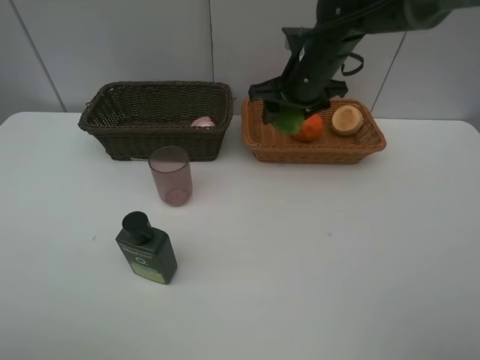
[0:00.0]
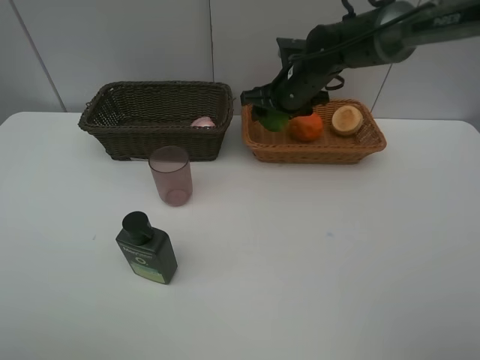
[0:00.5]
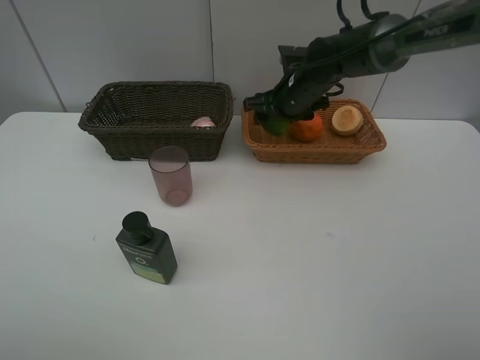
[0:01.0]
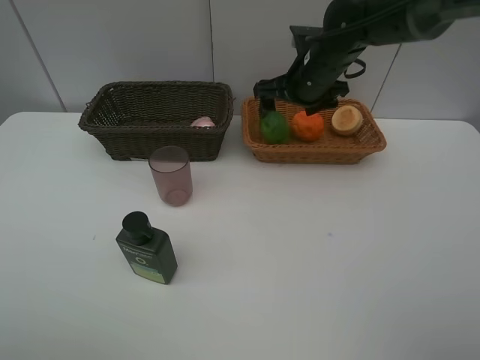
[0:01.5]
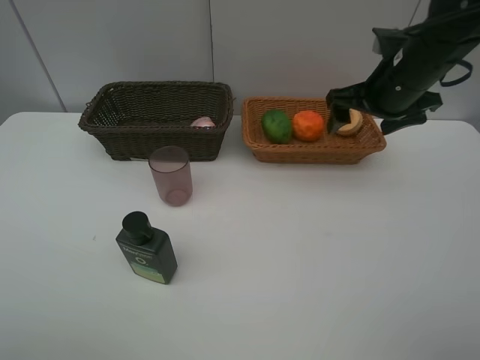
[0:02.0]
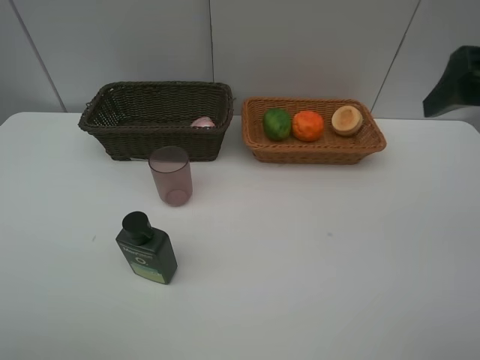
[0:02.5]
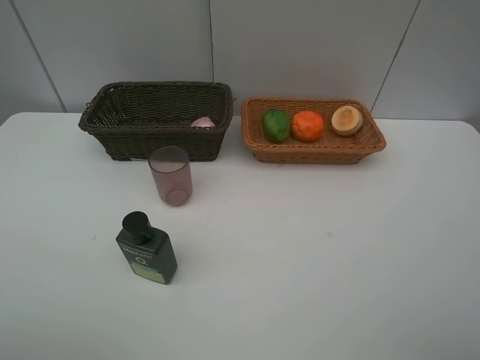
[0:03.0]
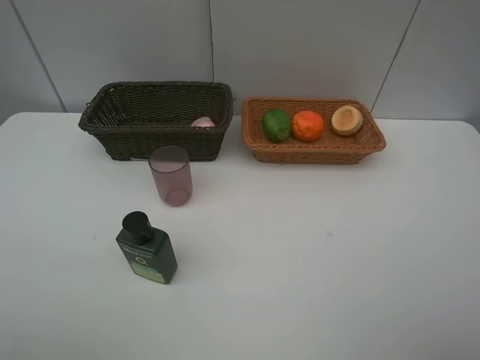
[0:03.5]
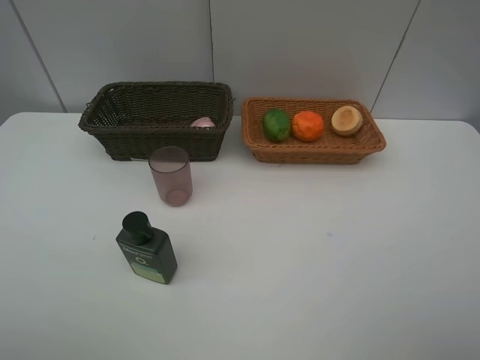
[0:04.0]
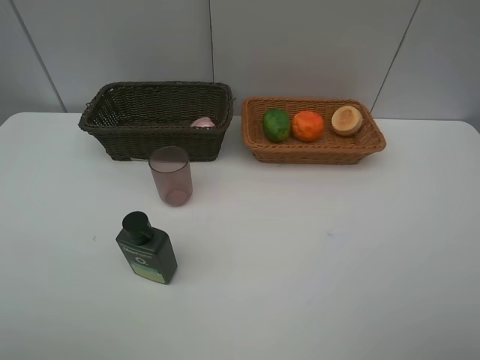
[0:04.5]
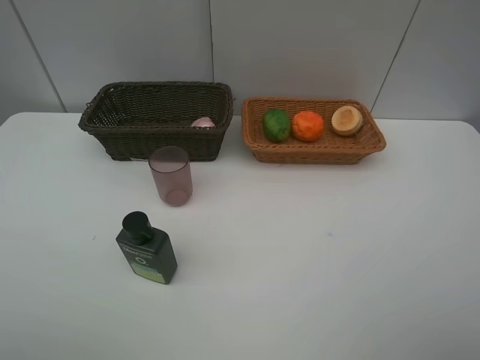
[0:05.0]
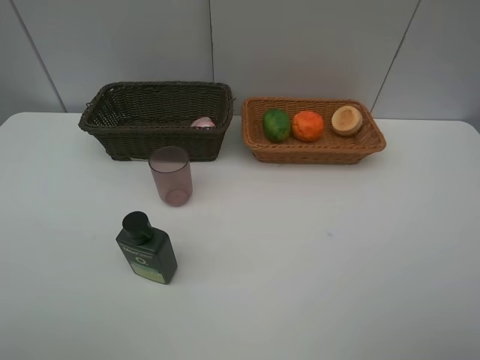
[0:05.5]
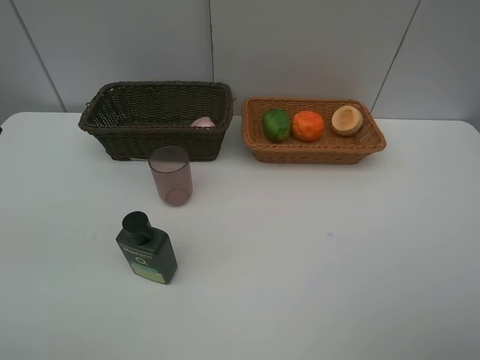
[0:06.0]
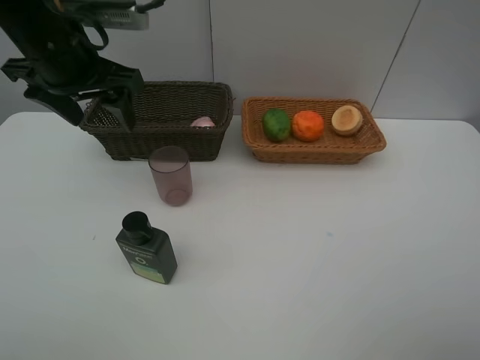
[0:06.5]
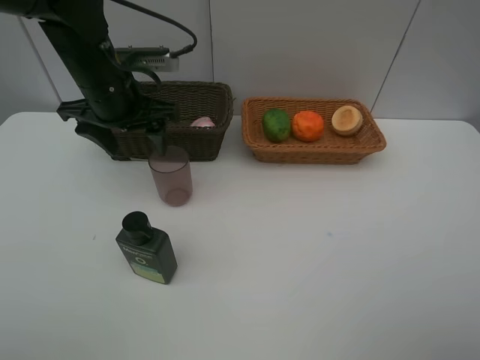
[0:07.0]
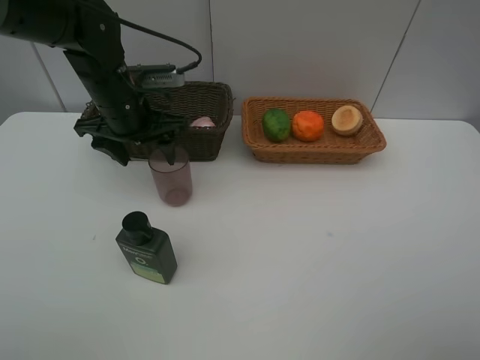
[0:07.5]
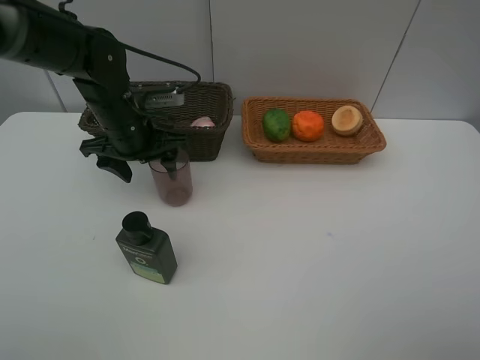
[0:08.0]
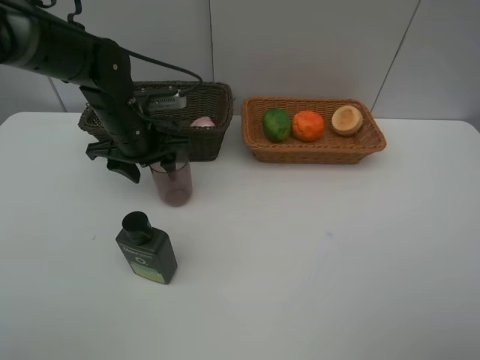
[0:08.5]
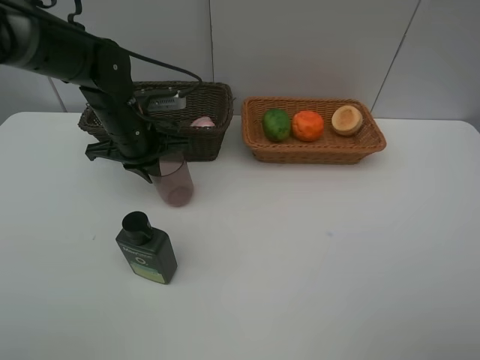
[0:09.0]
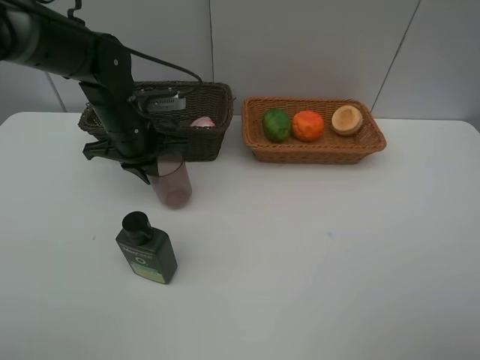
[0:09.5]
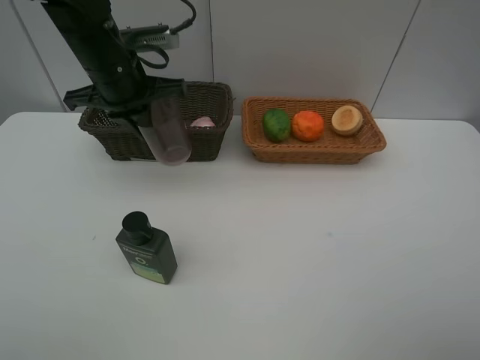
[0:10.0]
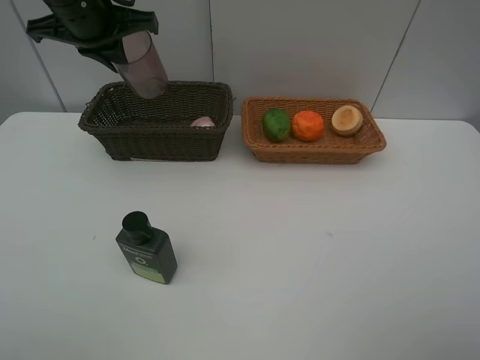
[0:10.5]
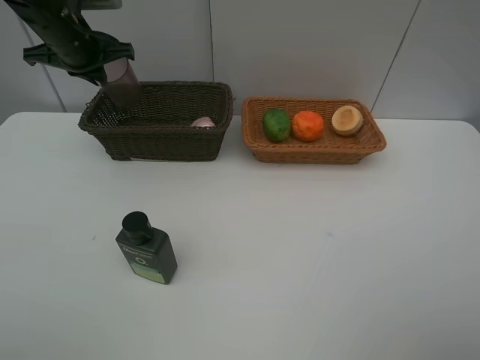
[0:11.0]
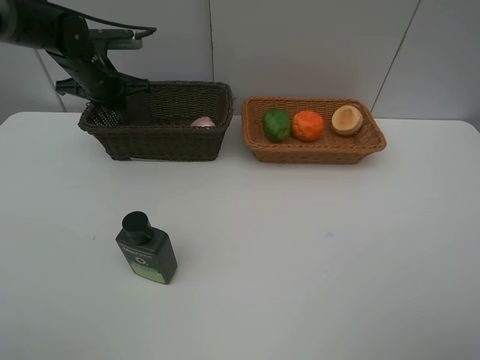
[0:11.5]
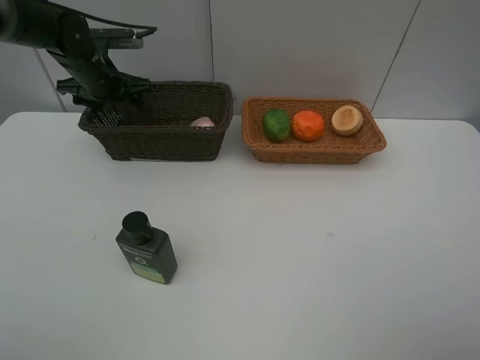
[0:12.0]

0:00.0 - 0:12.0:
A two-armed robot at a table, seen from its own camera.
Task of the whole recording: place multiple objects separately in different baskets.
Step, 0:00.0 - 0:01.5: Place the lime in the light basket with right gripper.
Step, 0:02.0 - 0:09.5: Pick up the brown cup with left gripper.
0:00.0 - 0:02.0: The right gripper goes about 15 cm to the right and backward, and opens.
0:02.0 - 0:04.0: The right gripper travels backward by about 35 cm.
0:06.0 - 0:08.0: The left gripper travels downward, forward and to the right by some 25 cm.
0:08.0 - 0:10.0: The left gripper heads upward, covering about 10 cm, and closes its fingers.
0:10.0 - 0:12.0: The left gripper goes roughly 15 cm forward, to the left and downward, and opens up.

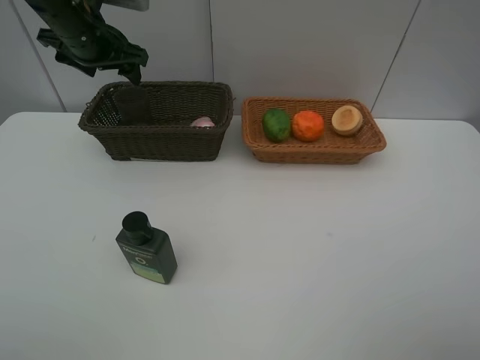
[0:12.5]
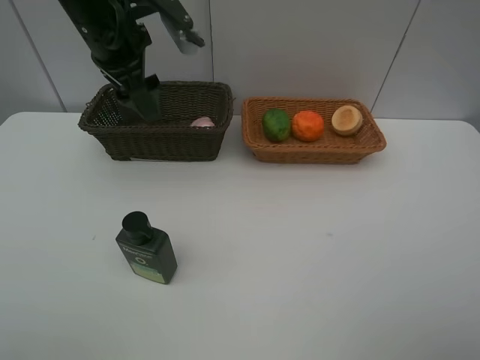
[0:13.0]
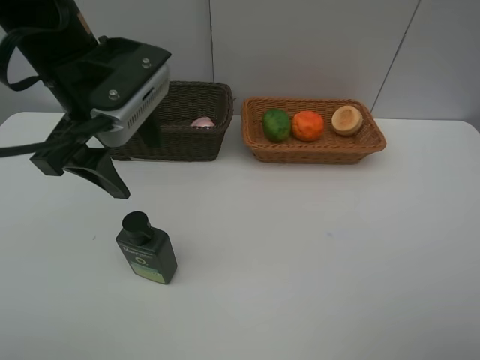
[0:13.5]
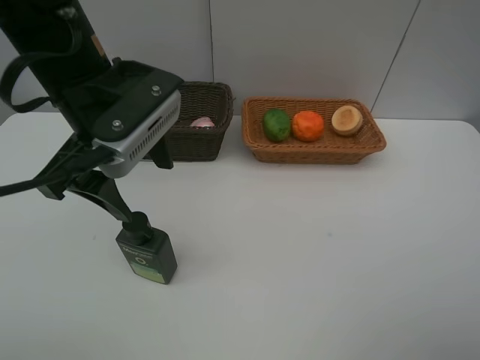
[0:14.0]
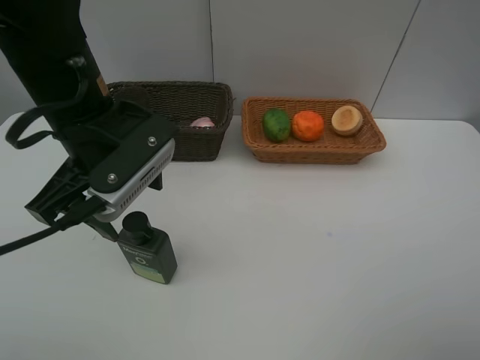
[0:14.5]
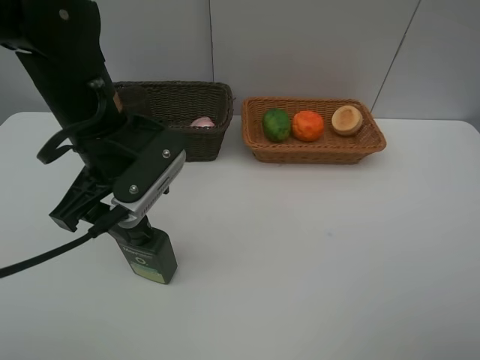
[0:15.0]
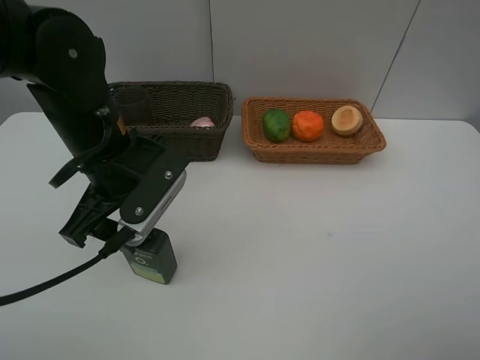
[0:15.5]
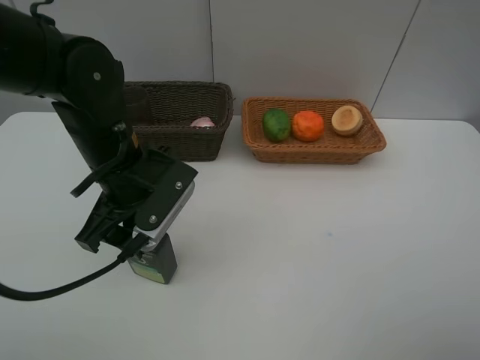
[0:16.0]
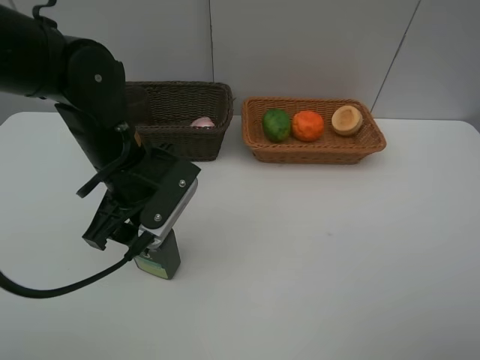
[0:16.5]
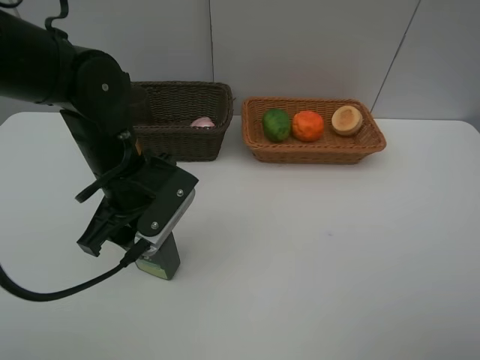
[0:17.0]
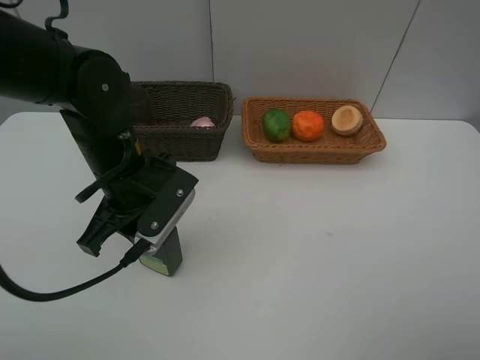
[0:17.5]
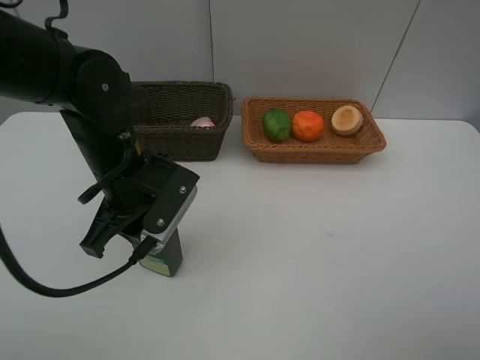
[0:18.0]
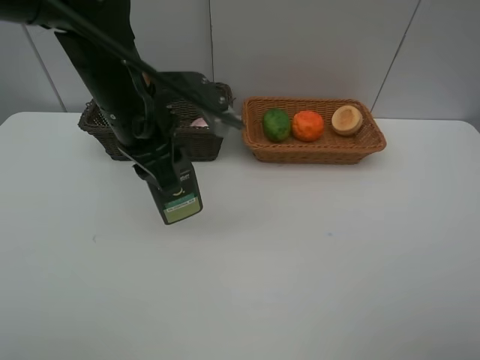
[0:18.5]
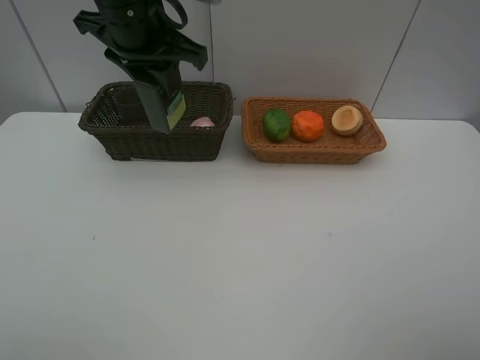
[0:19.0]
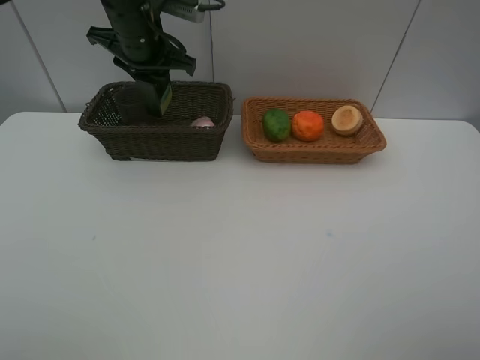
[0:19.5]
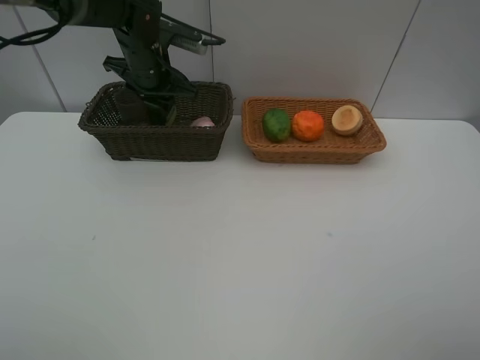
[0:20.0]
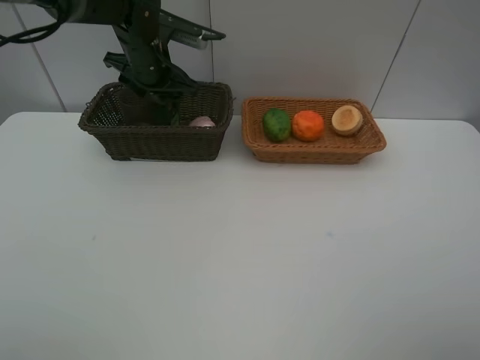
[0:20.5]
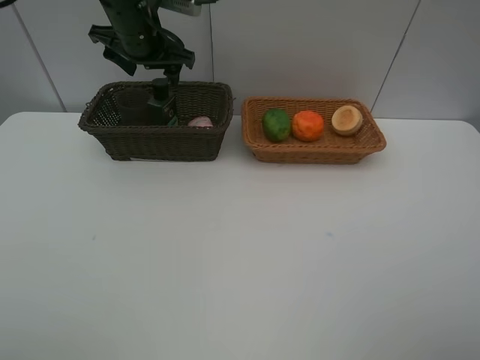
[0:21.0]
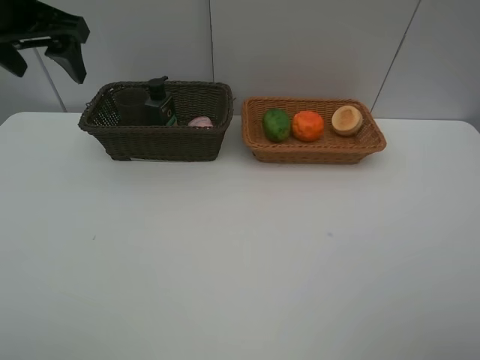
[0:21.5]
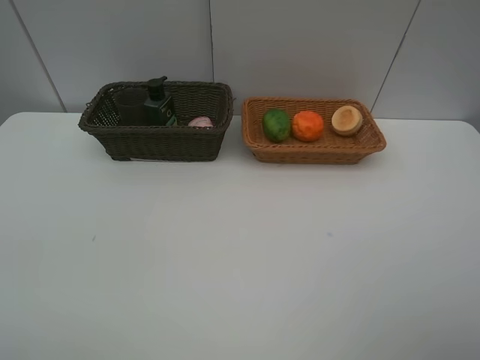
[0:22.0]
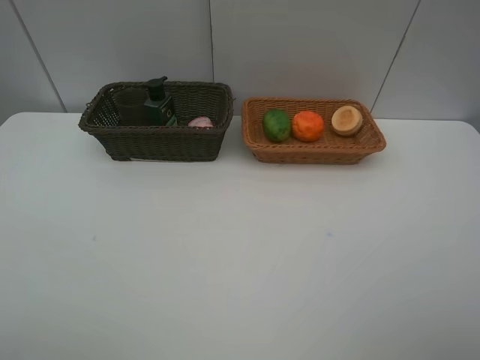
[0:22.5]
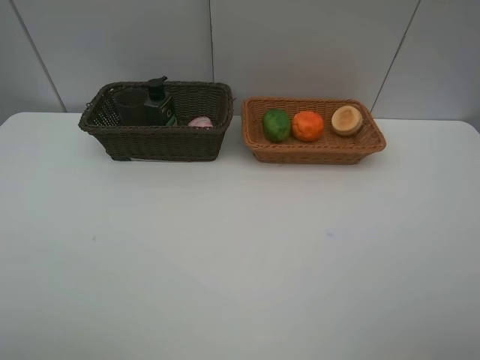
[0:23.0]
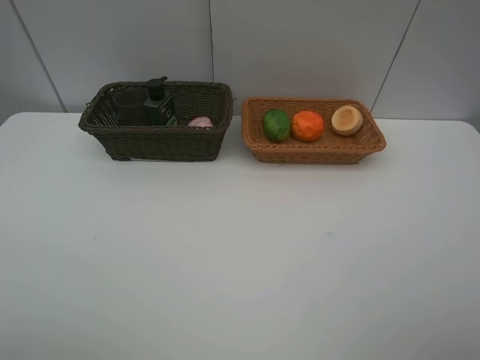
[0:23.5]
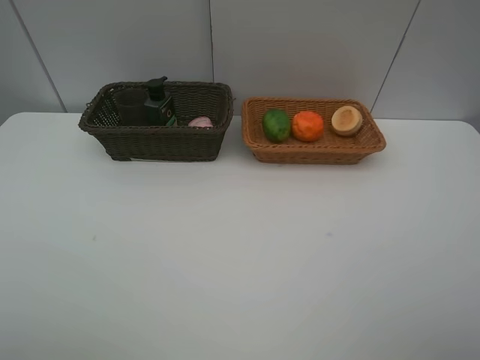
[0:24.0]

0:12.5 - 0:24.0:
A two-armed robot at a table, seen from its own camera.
Task of the whole recording: place multiple objects separately in different baskets.
Step, 0:12.5 - 0:18.0: Pick up the facial cleanser with left gripper.
Step, 0:18.5 - 0:21.0: Place the facial cleanser in the dark basket with left gripper.
0:12.5 - 0:14.5: The left gripper travels backward and to the right by about 20 cm.
0:14.5 - 0:16.5: The left gripper travels downward by roughly 5 cm.
0:16.5 - 0:18.5: The left gripper travels upward by roughly 5 cm, and closes up.
0:18.5 - 0:20.0: The left gripper shifts roughly 15 cm forward.
0:20.0 - 0:22.0: The left gripper travels backward, upward and to the left by roughly 40 cm, and opens its fingers.
